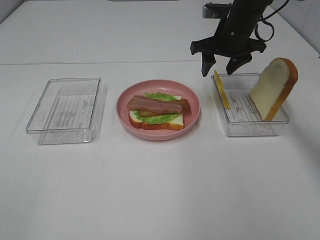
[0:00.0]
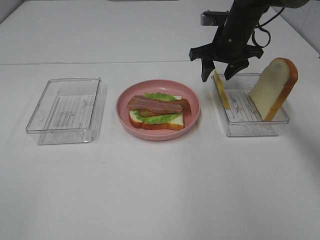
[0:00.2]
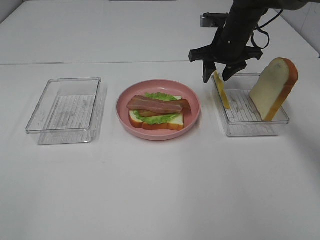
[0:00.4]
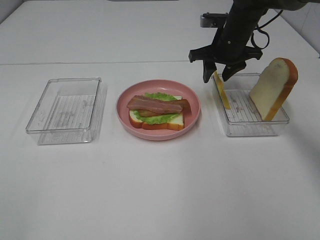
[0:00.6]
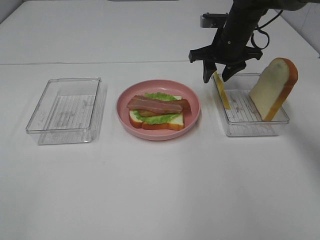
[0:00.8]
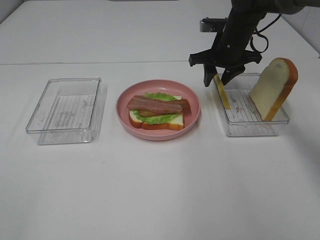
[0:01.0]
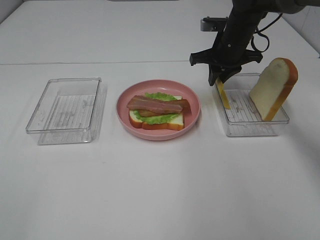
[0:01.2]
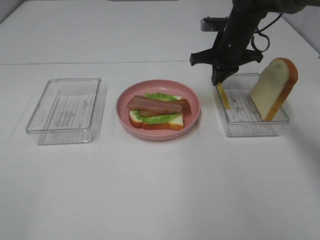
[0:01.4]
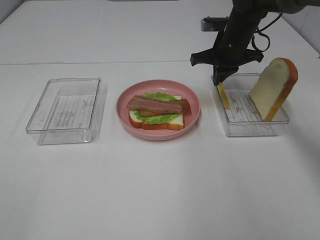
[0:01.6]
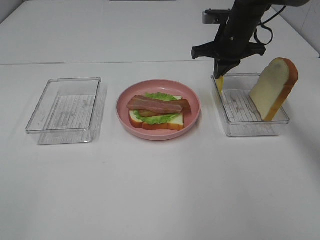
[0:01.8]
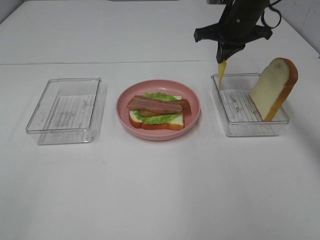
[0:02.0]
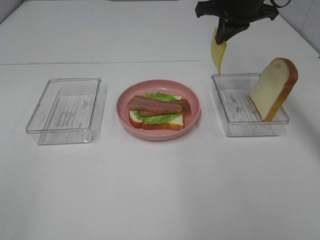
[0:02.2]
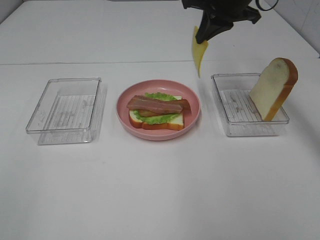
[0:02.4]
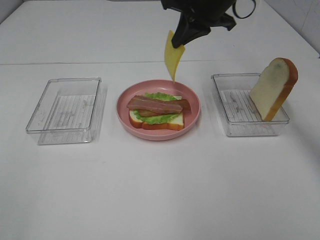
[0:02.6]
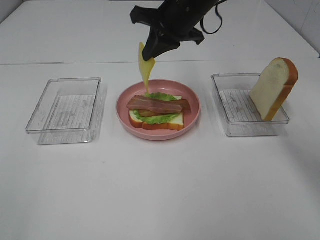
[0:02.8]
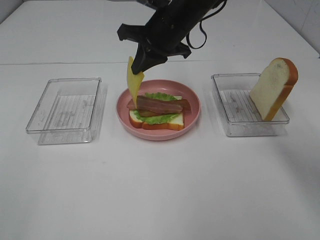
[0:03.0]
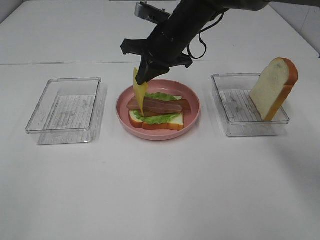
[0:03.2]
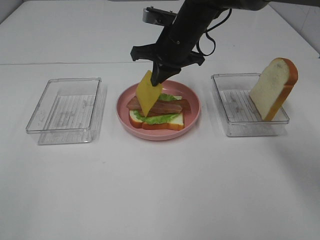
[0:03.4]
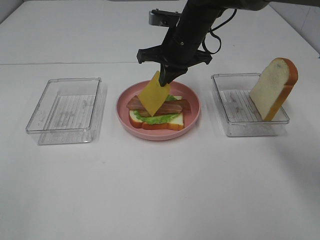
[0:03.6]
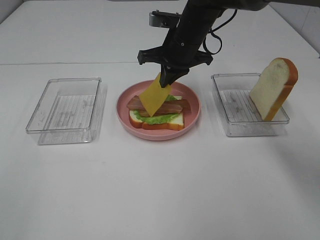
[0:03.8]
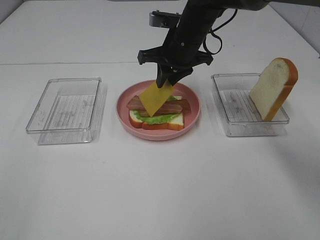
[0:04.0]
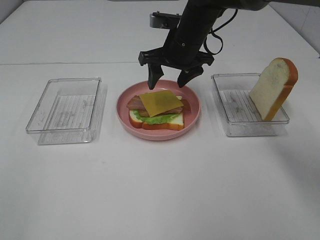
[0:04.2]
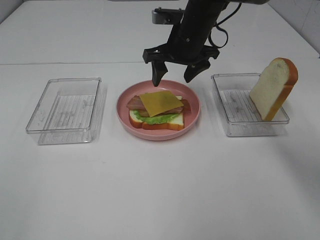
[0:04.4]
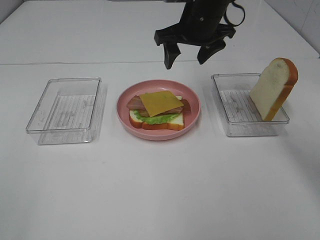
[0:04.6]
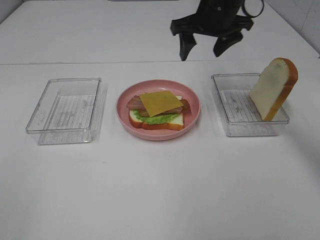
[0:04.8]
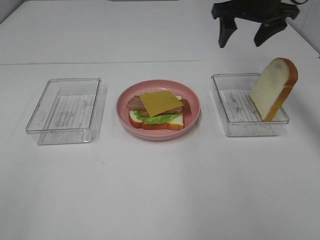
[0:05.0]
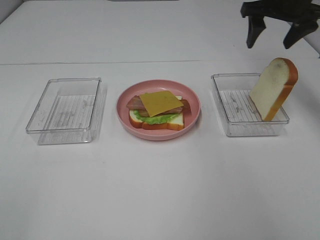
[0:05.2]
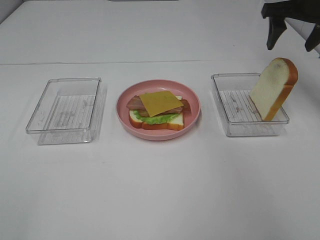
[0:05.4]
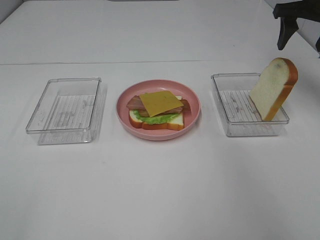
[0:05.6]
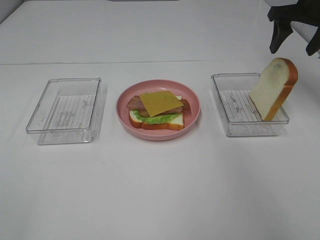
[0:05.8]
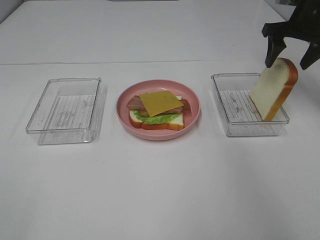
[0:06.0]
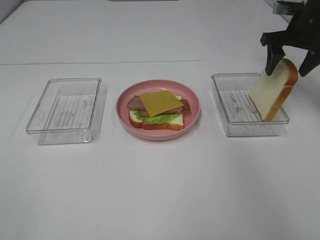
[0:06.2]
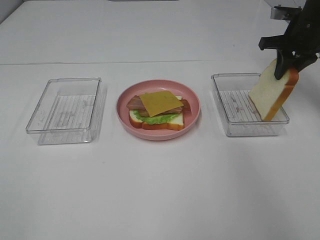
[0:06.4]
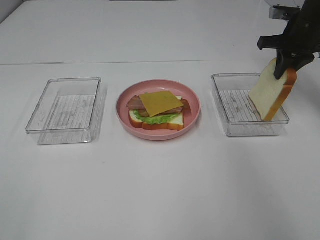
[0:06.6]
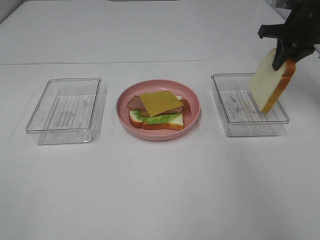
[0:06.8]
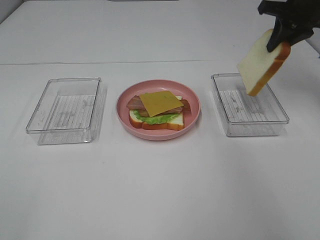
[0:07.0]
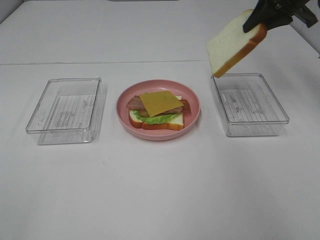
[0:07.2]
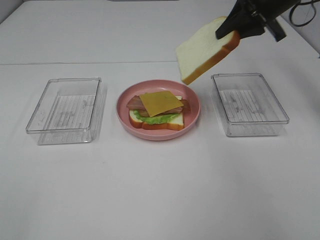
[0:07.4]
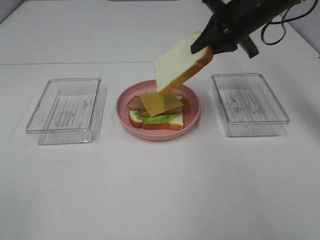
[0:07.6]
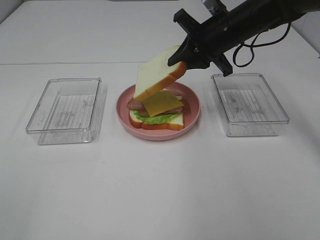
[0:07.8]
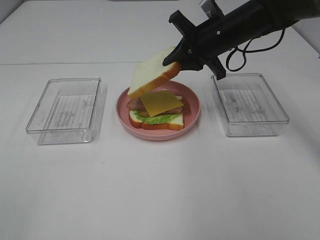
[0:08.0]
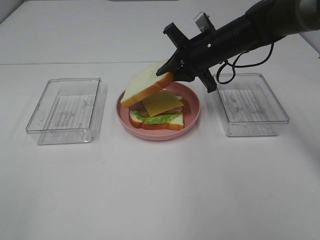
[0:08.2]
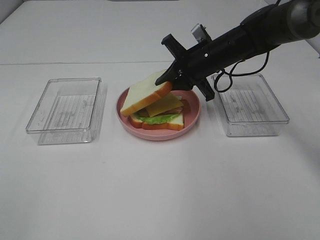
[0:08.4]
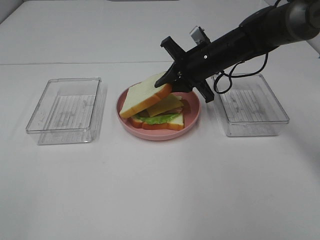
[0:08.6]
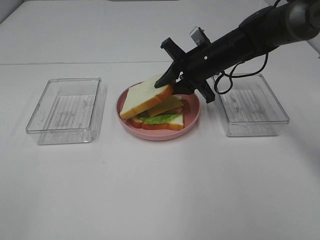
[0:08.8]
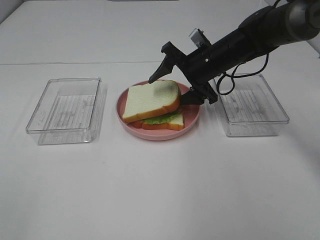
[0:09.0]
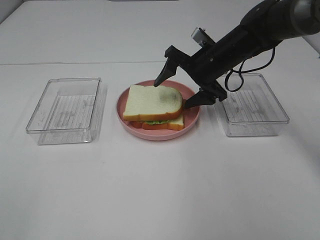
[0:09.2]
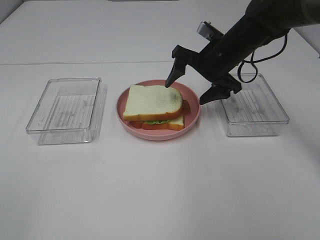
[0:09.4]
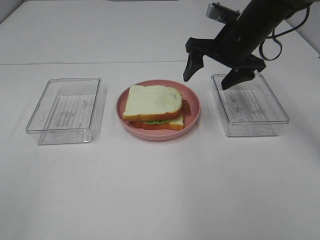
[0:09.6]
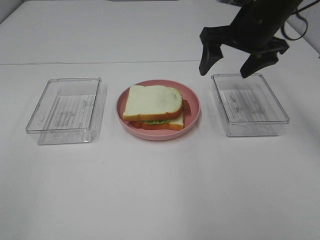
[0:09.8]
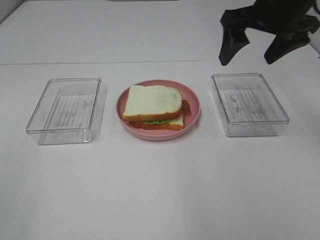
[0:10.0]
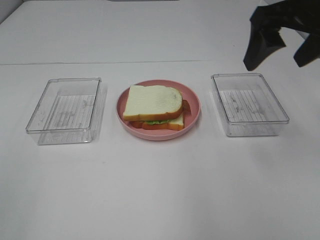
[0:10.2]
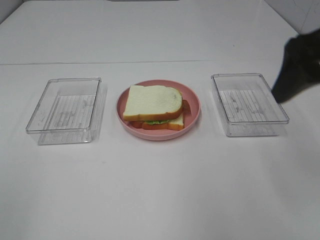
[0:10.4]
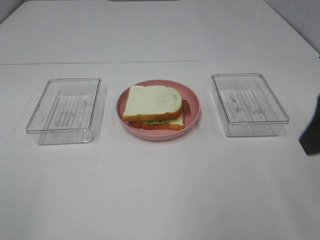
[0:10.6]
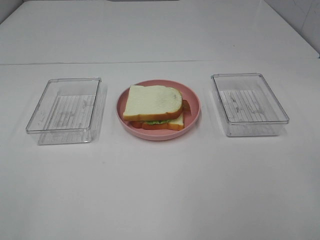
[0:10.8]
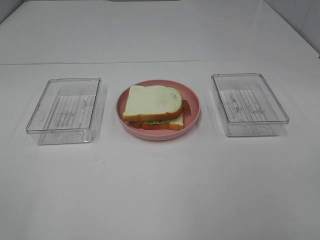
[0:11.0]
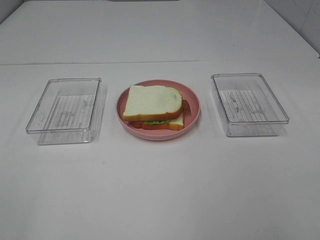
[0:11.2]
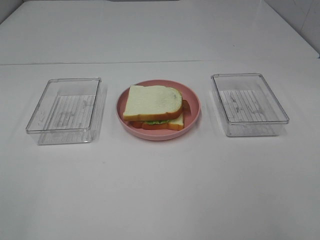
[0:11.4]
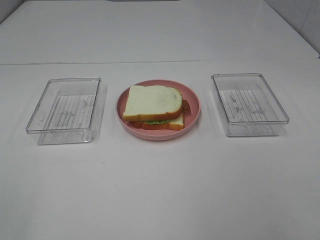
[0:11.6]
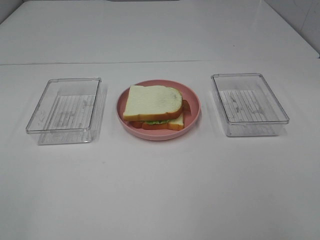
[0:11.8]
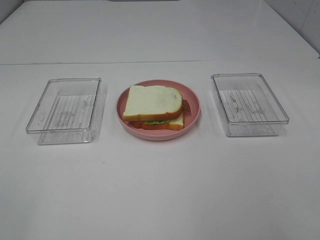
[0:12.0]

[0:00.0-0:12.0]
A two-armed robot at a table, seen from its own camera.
Task of the whole recording: Make sandwiches.
Step, 0:00.0 to 0:01.4: Right hand:grab the cheese slice.
Step, 0:01.6 to 0:04.6: Right hand:place the cheese slice on top of the bacon.
Step, 0:04.8 to 0:06.8: Right hand:grab the bread slice.
Step, 0:07.0 to 0:09.6: Right hand:place the bread slice on the cheese slice.
0:00.0 to 0:01.6: The right gripper closes its fingers.
0:01.6 to 0:03.0: The right gripper goes some 15 cm to the left and backward.
0:03.0 to 0:04.4: The right gripper opens its fingers.
0:04.4 to 0:06.0: The right gripper heads to the right, covering some 25 cm.
0:06.0 to 0:07.6: The right gripper goes approximately 10 cm to the left, and closes its fingers.
0:07.6 to 0:09.0: The right gripper travels downward and to the left by some 10 cm, and opens.
0:09.0 to 0:10.4: The right gripper heads backward, upward and to the right, covering approximately 30 cm.
0:10.4 to 0:12.0: The right gripper is displaced backward by about 20 cm.

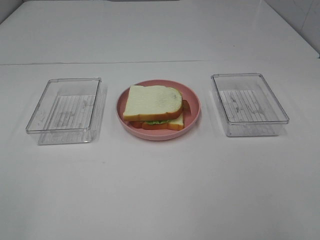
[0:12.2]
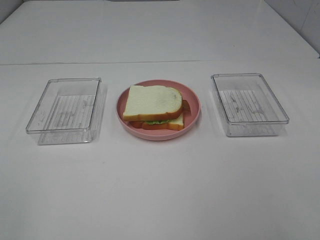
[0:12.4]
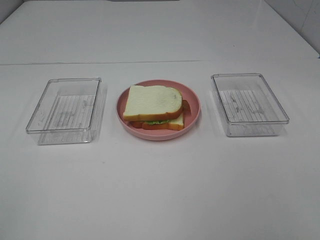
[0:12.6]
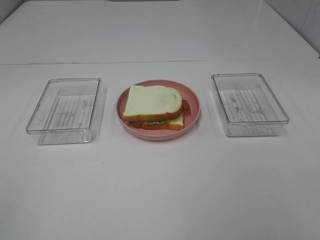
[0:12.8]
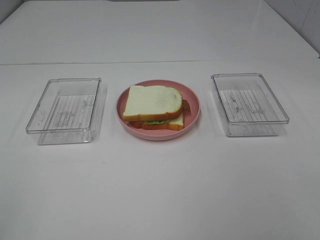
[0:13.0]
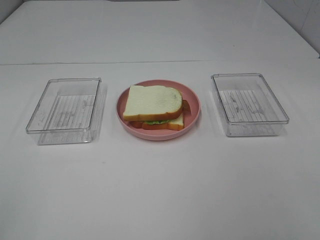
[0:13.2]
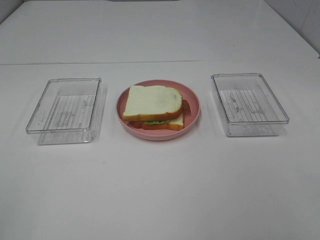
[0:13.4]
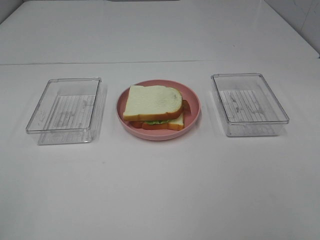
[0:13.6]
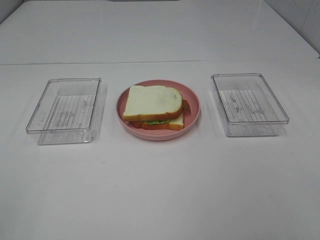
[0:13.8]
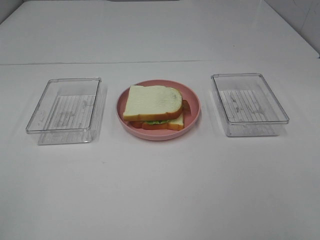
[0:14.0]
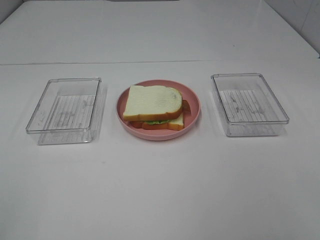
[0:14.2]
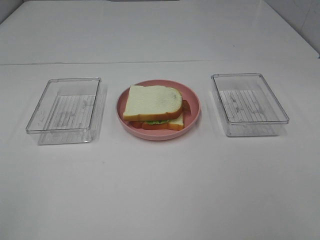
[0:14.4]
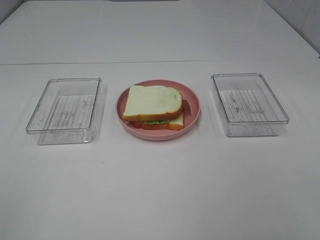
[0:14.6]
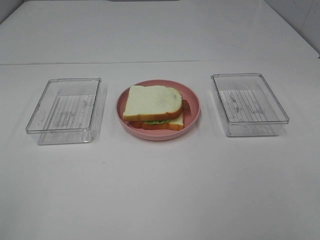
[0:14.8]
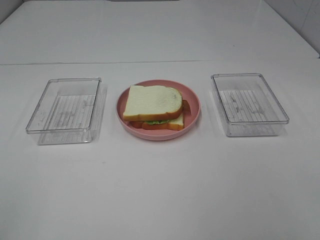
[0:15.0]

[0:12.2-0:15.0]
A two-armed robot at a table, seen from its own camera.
Task of the whole recording: Make sandwiches.
0:13.6 to 0:15.0: Neither gripper changes place.

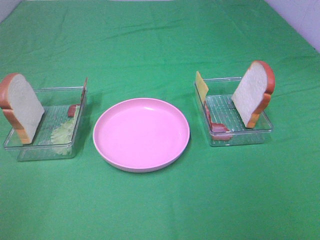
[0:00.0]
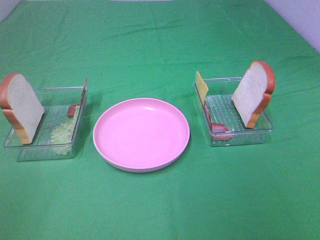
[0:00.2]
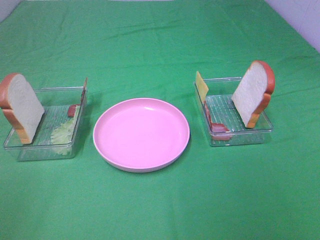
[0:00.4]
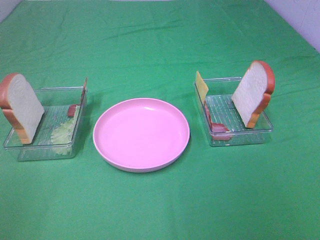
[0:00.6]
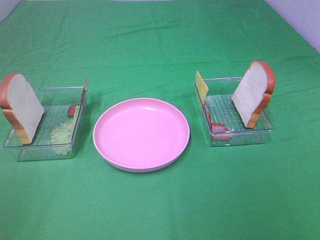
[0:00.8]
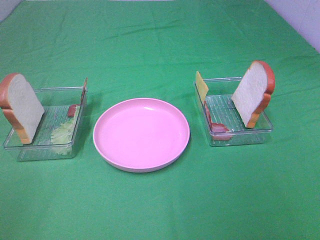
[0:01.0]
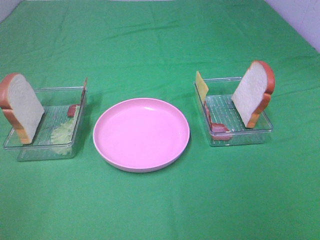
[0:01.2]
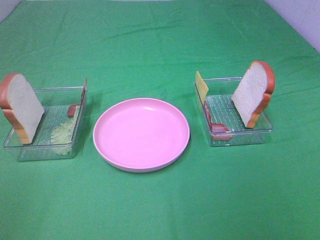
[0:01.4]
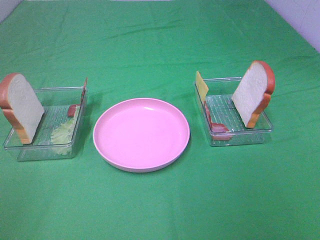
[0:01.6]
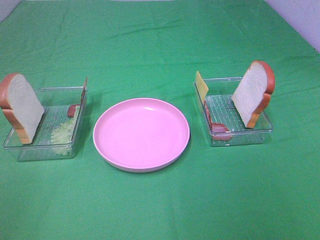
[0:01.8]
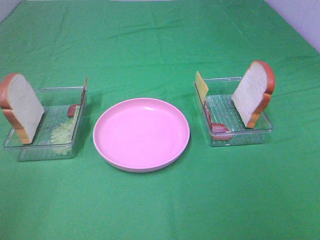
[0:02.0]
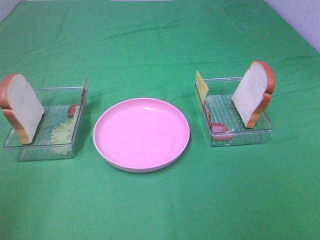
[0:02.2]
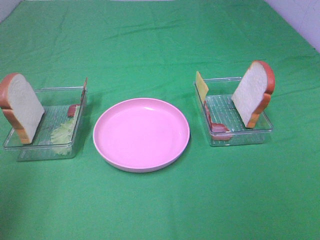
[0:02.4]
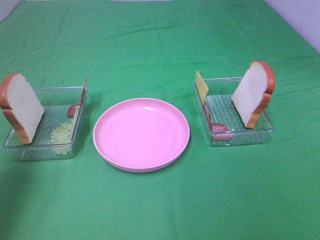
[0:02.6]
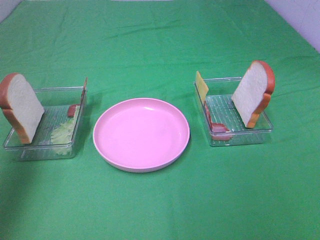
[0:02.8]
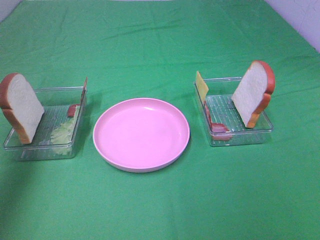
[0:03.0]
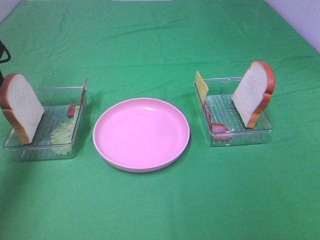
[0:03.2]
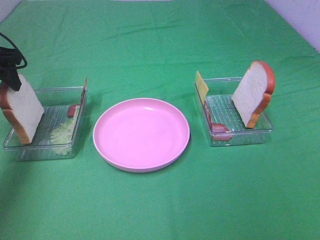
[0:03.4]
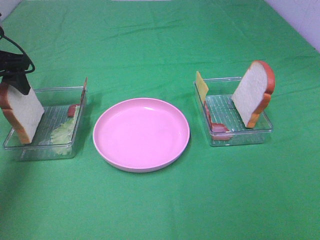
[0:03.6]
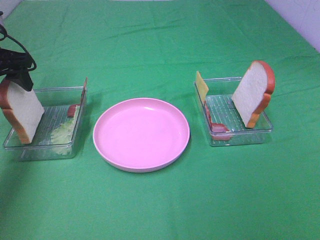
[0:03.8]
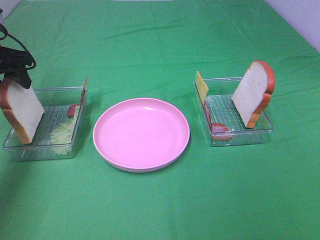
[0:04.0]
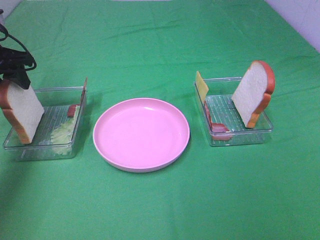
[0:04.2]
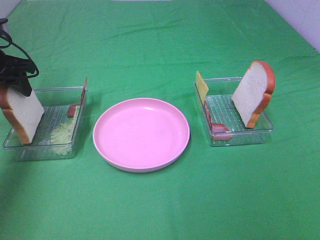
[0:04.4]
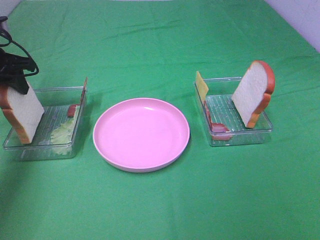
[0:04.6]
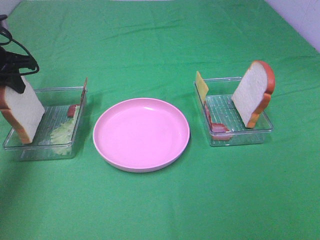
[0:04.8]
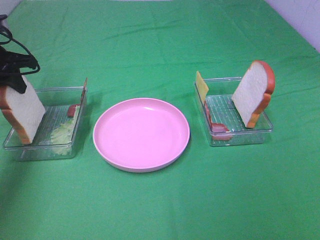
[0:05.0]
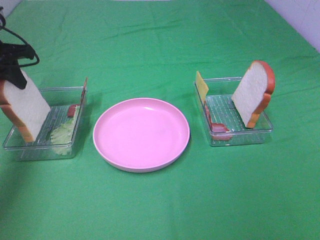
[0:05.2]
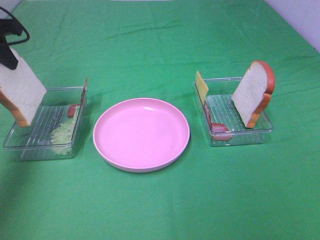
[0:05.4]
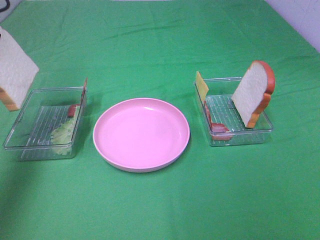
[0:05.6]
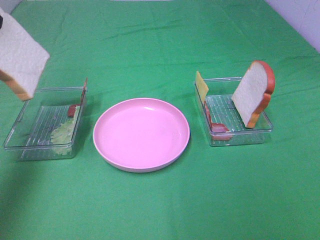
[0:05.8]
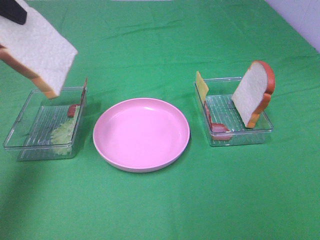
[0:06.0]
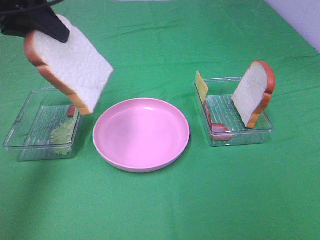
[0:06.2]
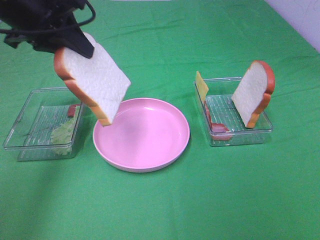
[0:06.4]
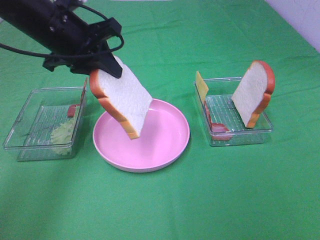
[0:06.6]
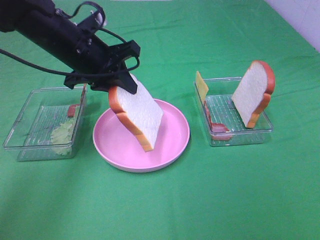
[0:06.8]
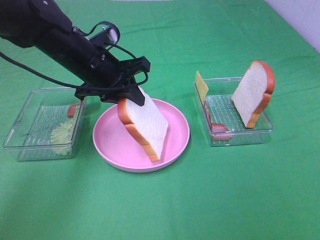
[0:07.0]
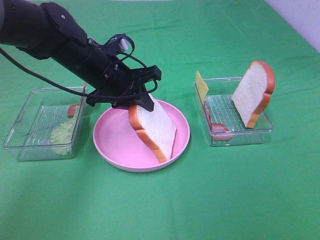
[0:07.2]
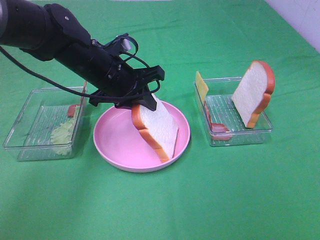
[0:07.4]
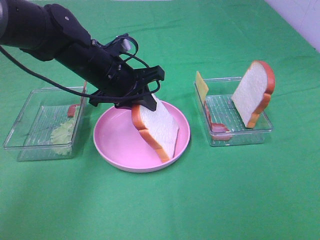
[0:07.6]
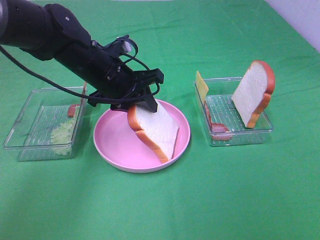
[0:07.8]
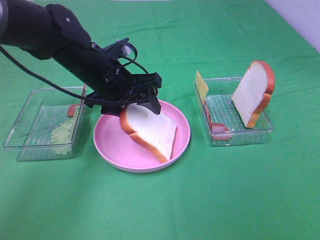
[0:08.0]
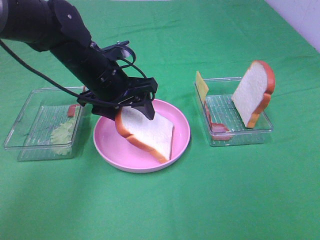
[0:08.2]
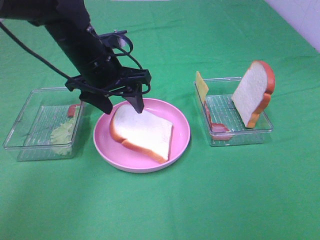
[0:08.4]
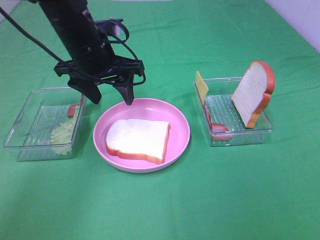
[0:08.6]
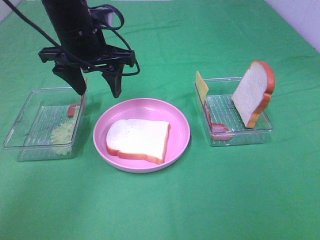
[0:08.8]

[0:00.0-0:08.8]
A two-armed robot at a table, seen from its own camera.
Task of the whole recording: Make sandwiches.
Step, 0:00.0 to 0:04.8: Left hand:grab the bread slice.
Step, 0:05.0 to 0:08.6: Left hand:place the bread slice on the plate.
0:00.0 to 0:01.4: Neither gripper changes place.
0:01.4 to 0:03.0: The left gripper is displaced forward by about 30 cm.
0:03.0 to 0:04.4: The left gripper is displaced downward and forward by some 10 cm.
0:04.4 to 0:05.8: The left gripper moves upward and backward, roughly 20 cm, and closes up.
0:05.8 to 0:07.4: The left gripper is displaced to the right and downward by roughly 25 cm.
0:07.4 to 0:08.8: The left gripper shifts approximately 10 cm upward, and opens its fingers.
